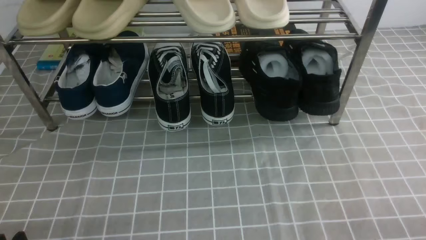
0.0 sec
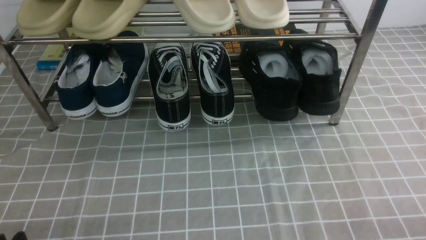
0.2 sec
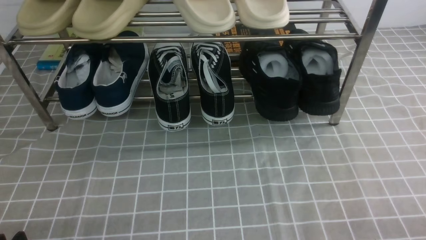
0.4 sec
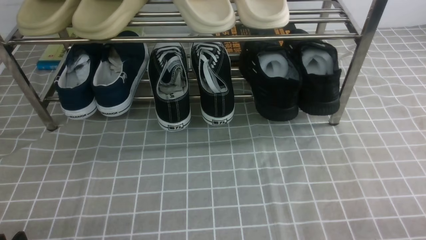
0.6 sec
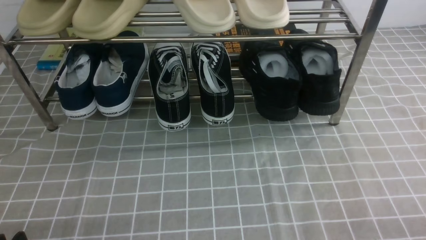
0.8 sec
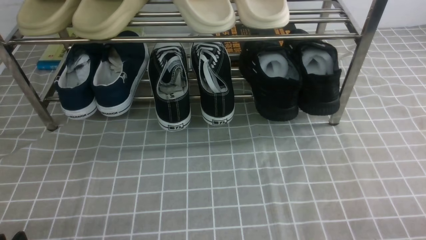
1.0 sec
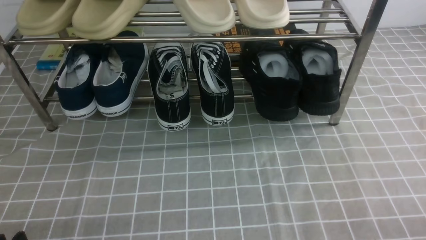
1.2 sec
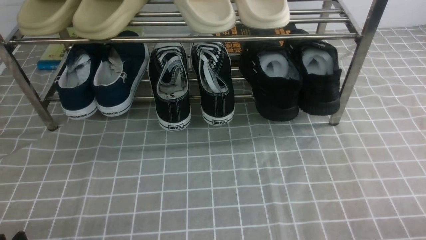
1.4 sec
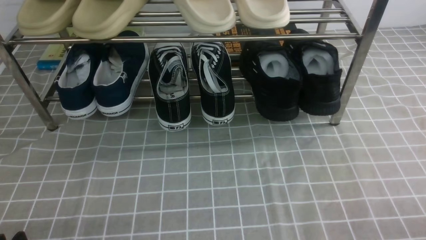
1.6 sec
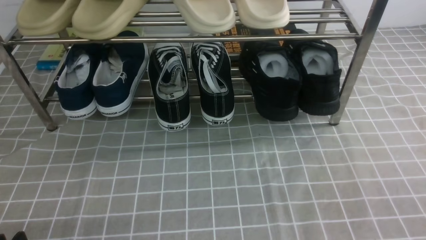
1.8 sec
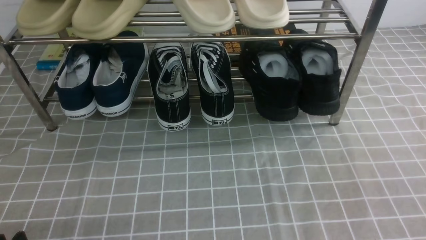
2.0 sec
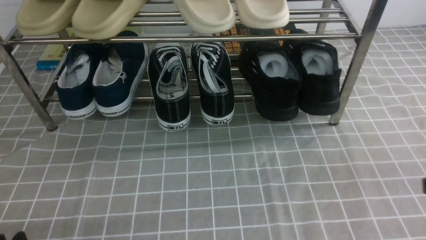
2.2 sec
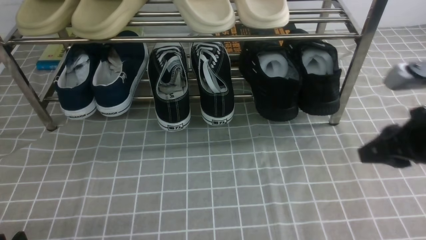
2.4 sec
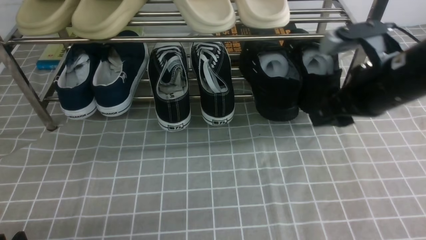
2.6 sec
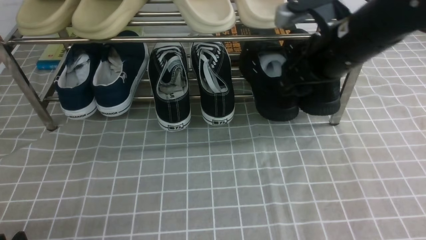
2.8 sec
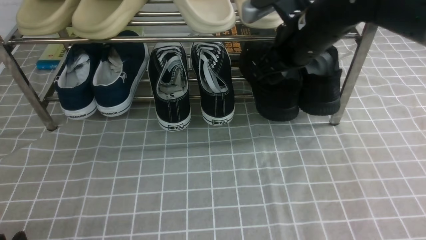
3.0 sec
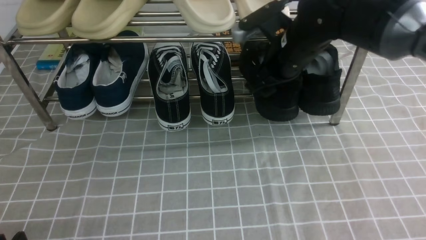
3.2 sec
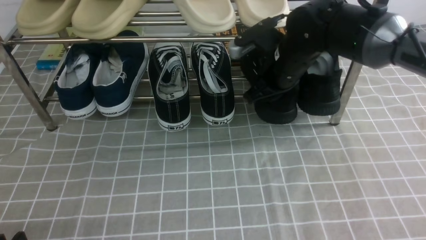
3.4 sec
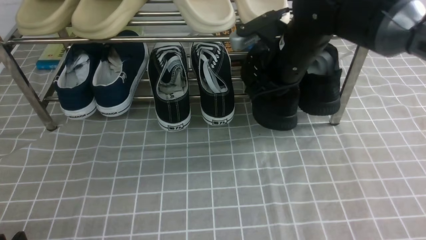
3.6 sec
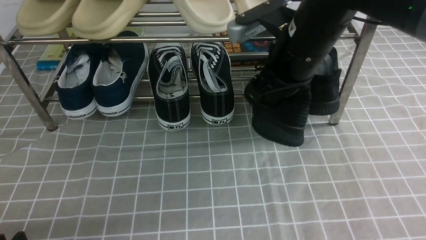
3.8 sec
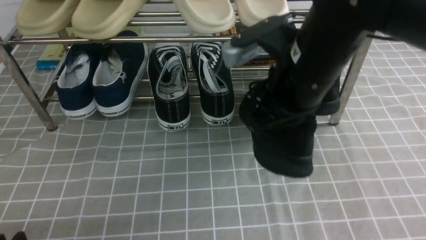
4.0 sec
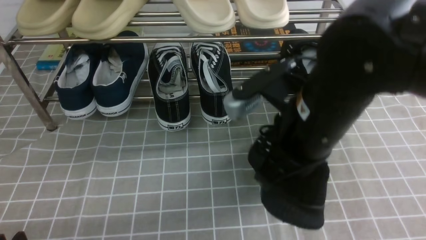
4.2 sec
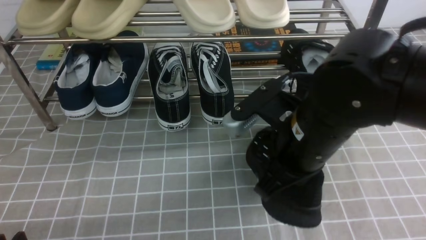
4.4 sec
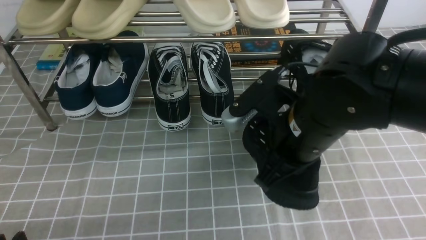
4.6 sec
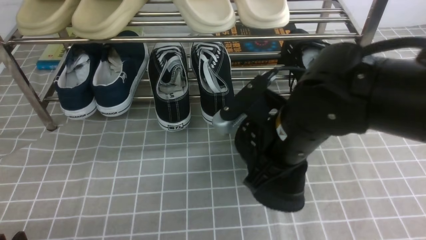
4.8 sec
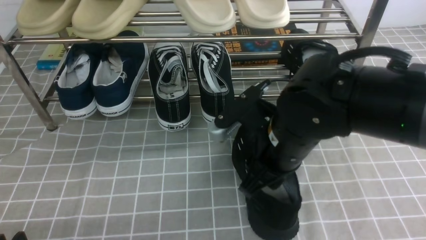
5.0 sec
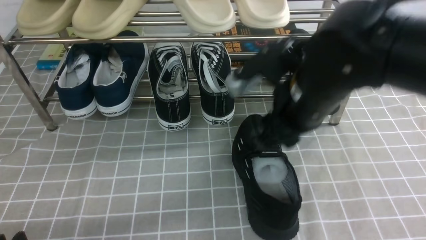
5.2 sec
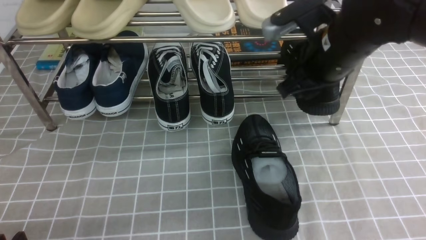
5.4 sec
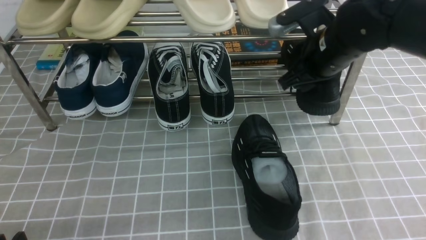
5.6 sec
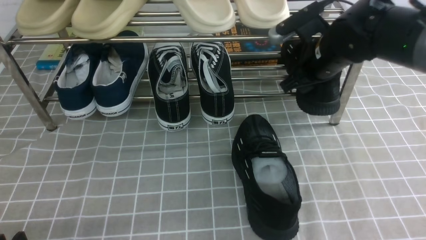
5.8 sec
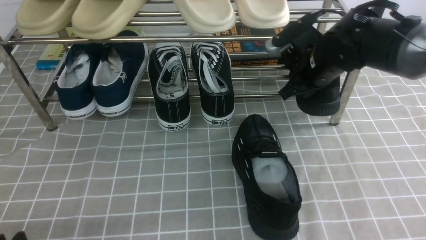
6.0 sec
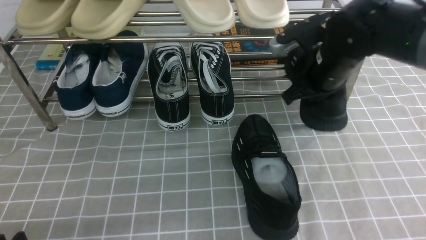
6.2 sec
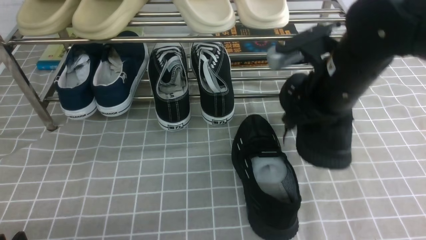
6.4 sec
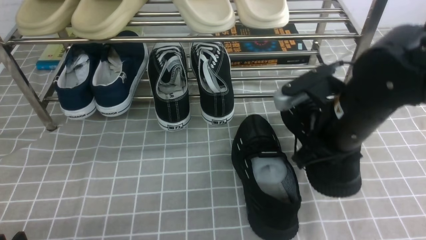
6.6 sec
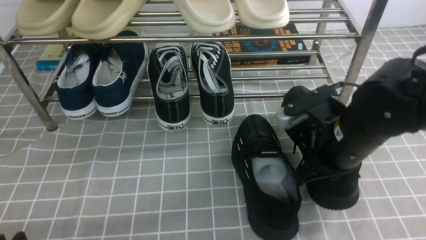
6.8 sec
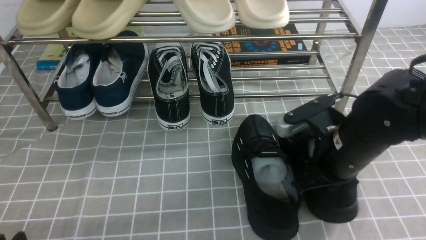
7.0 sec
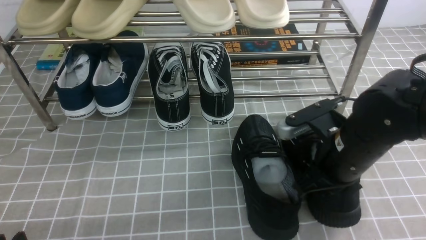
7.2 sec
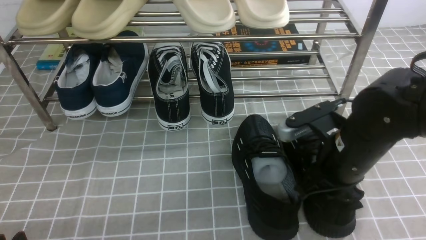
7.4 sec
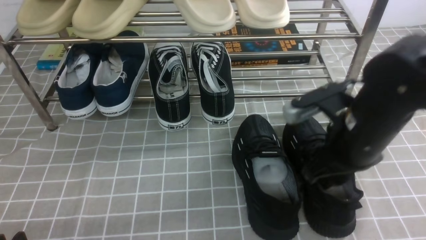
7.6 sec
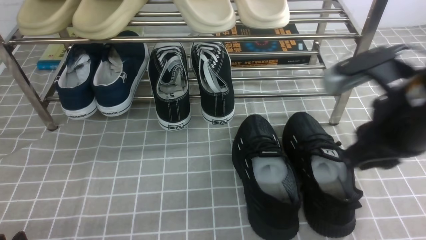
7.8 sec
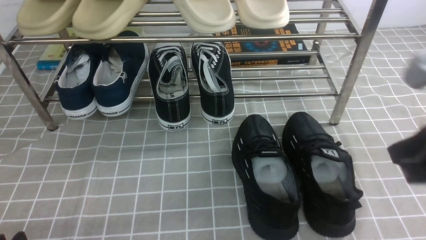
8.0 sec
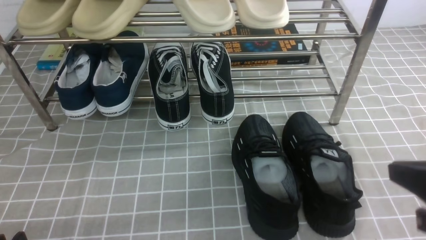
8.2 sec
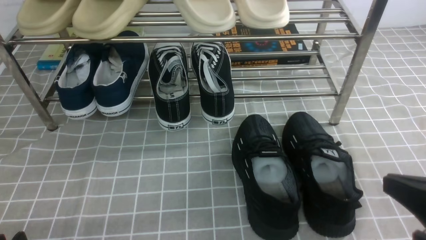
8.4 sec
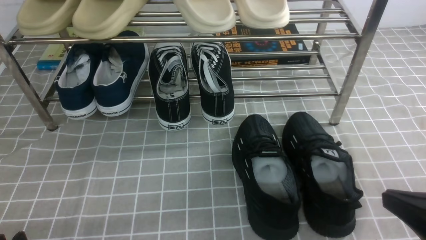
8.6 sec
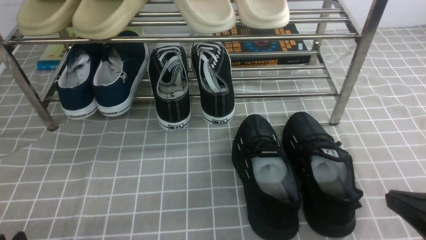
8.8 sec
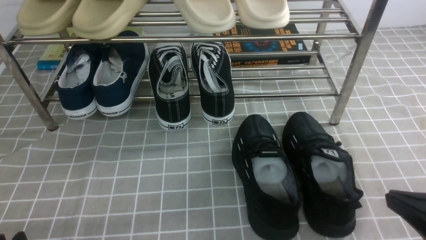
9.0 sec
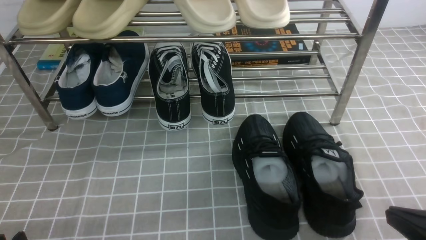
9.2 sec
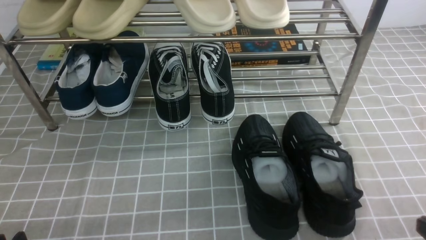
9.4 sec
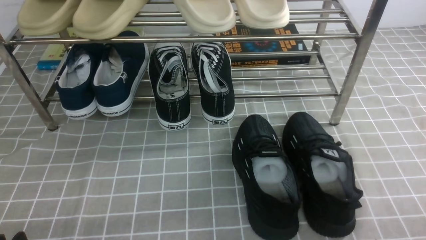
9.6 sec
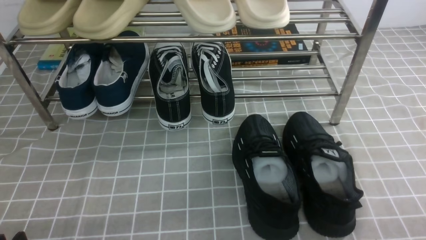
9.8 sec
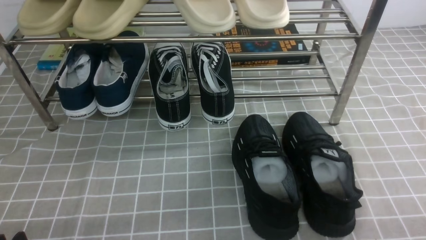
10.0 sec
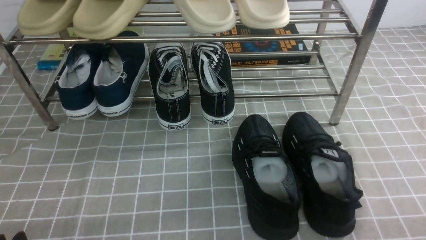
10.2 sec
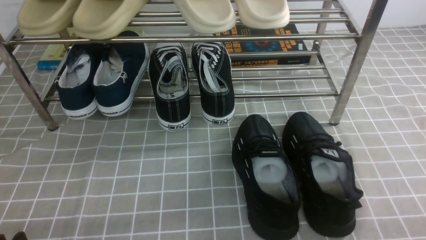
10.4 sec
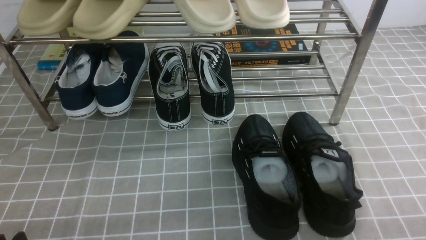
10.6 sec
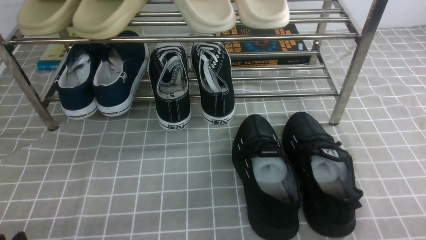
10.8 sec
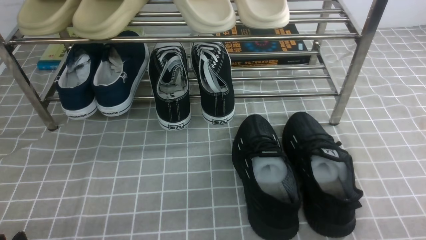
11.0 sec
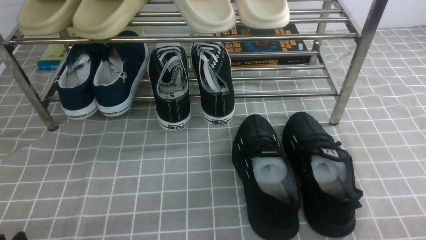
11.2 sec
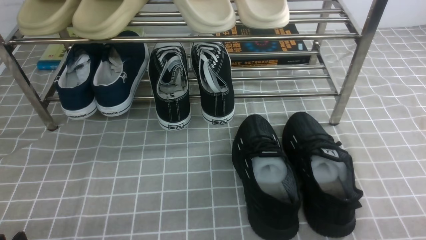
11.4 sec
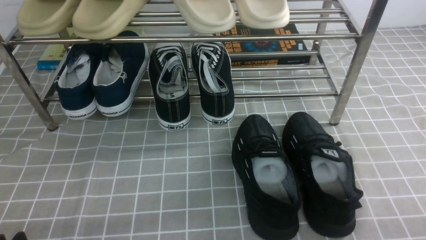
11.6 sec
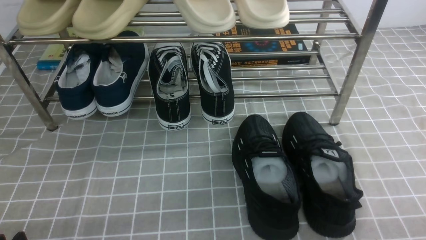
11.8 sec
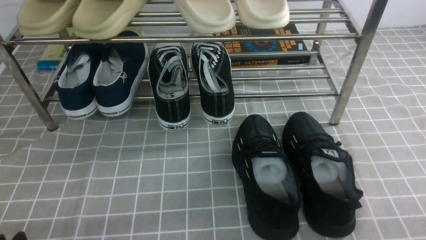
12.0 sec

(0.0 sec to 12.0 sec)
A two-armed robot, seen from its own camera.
Step, 0.0 sec - 3.6 sec: use the right arm to clamp a shoe on the right side of the shoe rack.
Step, 3.8 sec - 5.2 sec: use the right arm to take out the clamped shoe from the shoe rack and put it down.
Step, 5.4 sec - 6.2 sec: use the right arm to clamp a shoe on the right side of the shoe rack.
Step, 6.4 sec - 7.4 sec: use the right arm to take out the clamped shoe from the shoe rack and put it down.
1.6 sec - 3.0 sec: The right gripper shifts roughly 35 cm forward and to the left, and opens.
3.0 sec - 4.4 sec: The right gripper shifts roughly 15 cm backward, and closes up.
4.4 sec - 6.0 sec: The right gripper shifts some 20 cm forward and to the right, and opens up.
6.0 sec - 7.6 sec: The right gripper goes approximately 15 cm backward, and closes, then opens again.
7.6 sec - 9.0 sec: The right gripper heads backward and to the right, covering some 15 cm, and closes up.
9.0 sec - 10.4 sec: The right gripper travels downward and to the right by roughly 10 cm.
10.4 sec - 12.0 sec: Neither gripper changes place.
